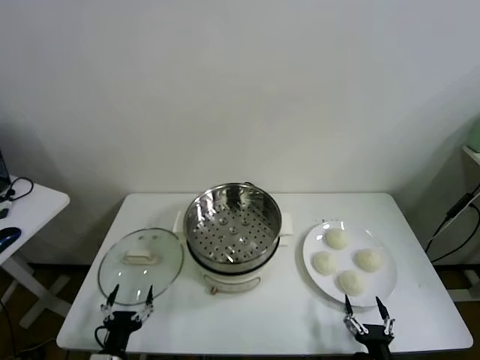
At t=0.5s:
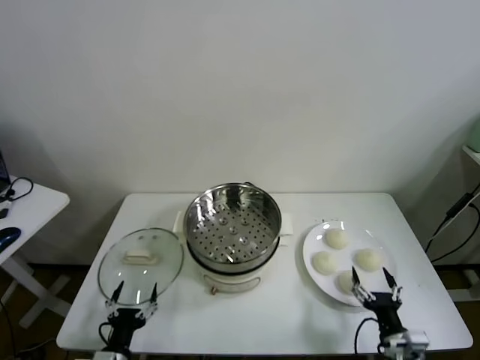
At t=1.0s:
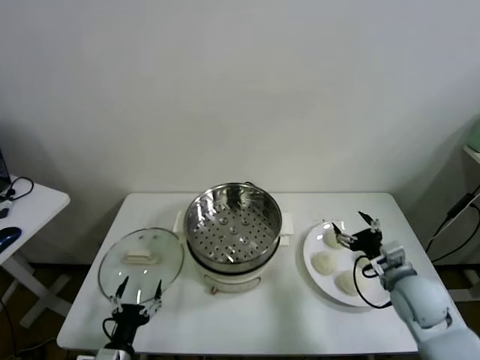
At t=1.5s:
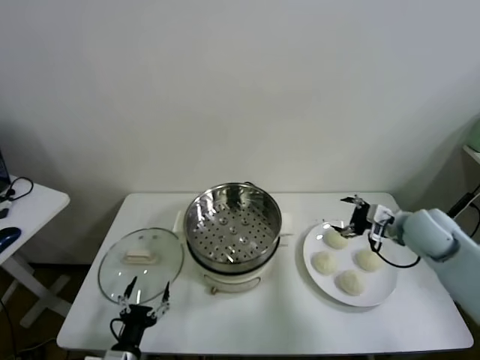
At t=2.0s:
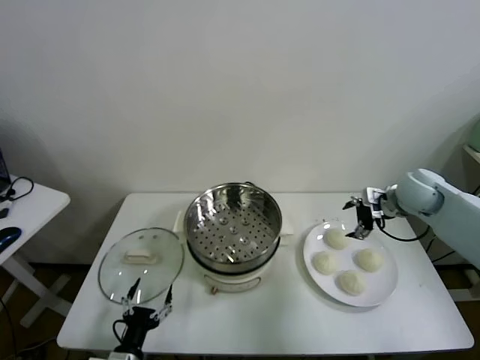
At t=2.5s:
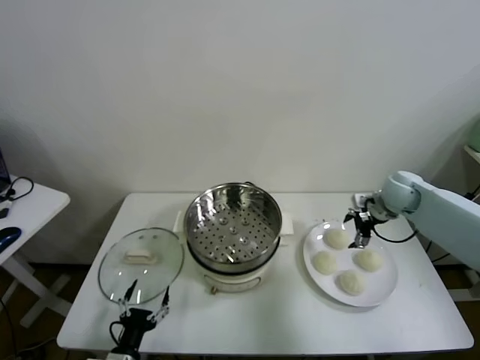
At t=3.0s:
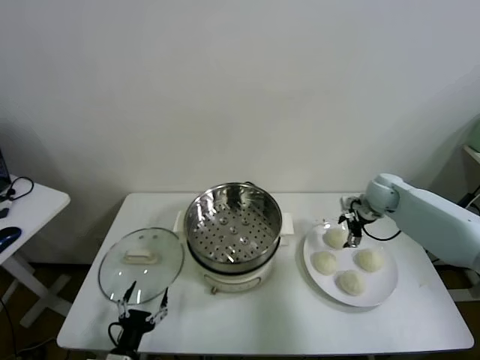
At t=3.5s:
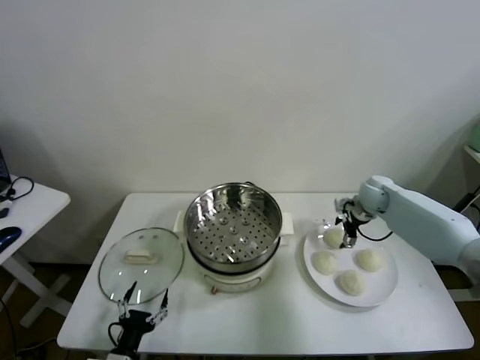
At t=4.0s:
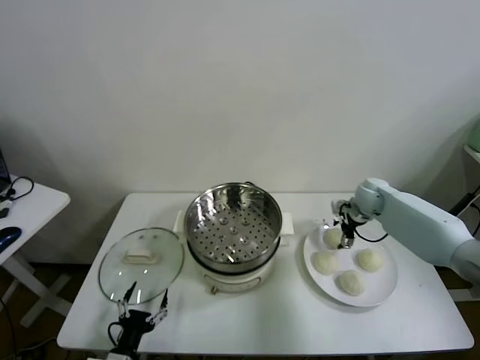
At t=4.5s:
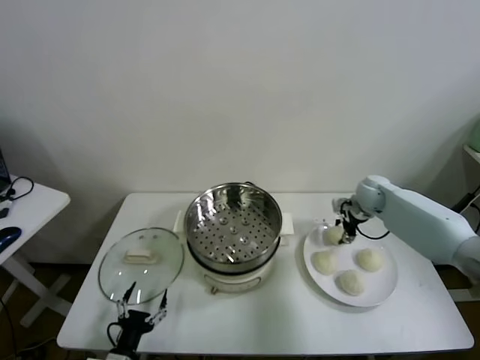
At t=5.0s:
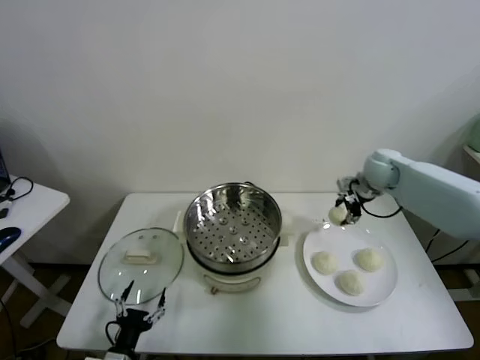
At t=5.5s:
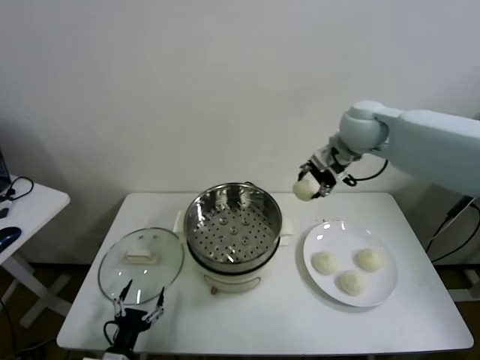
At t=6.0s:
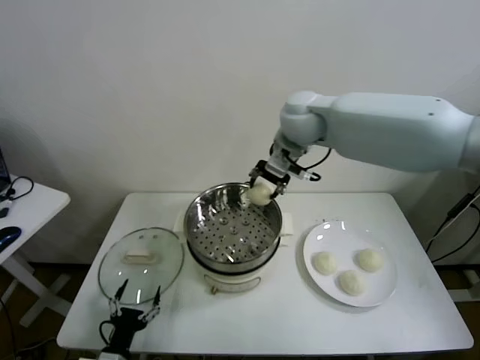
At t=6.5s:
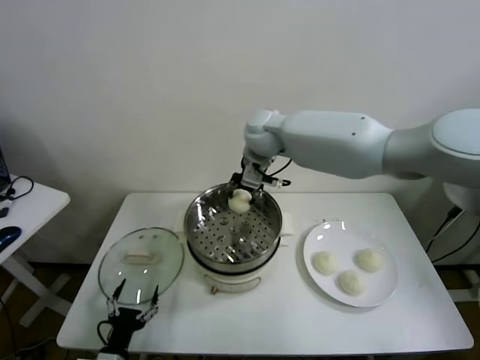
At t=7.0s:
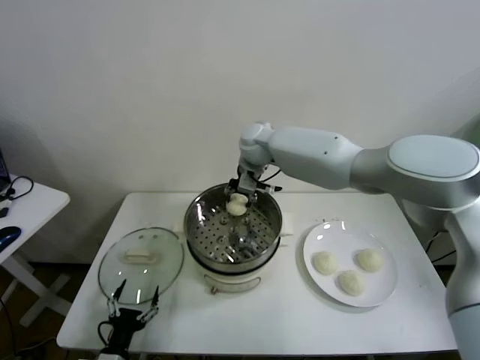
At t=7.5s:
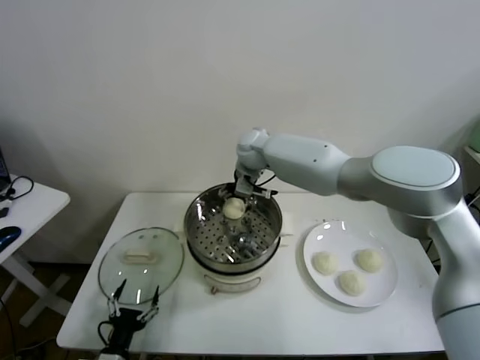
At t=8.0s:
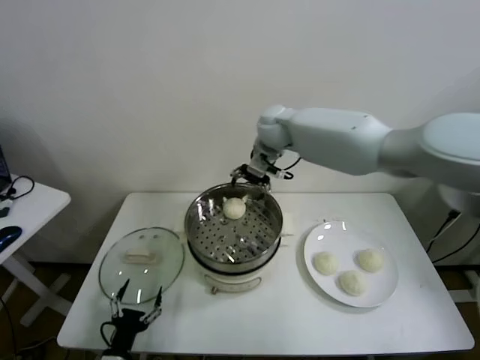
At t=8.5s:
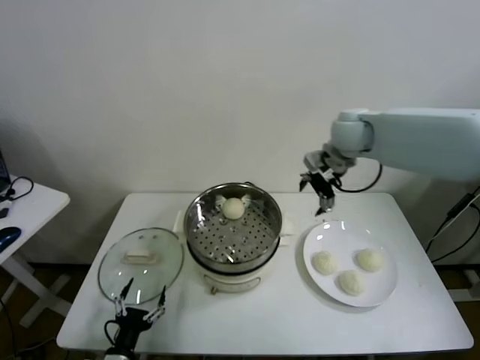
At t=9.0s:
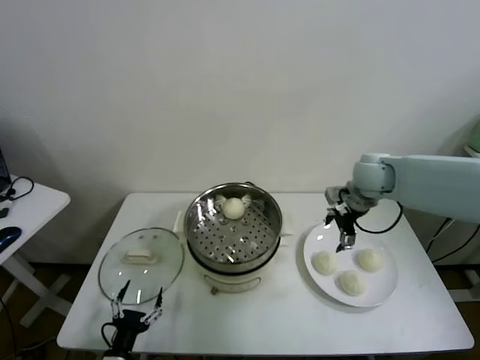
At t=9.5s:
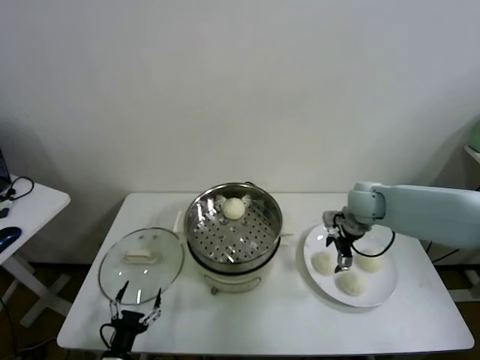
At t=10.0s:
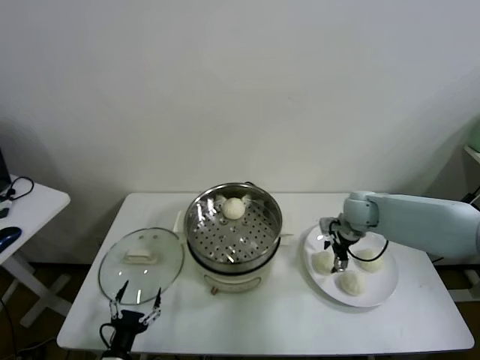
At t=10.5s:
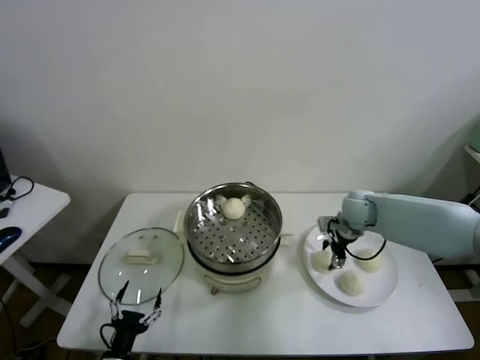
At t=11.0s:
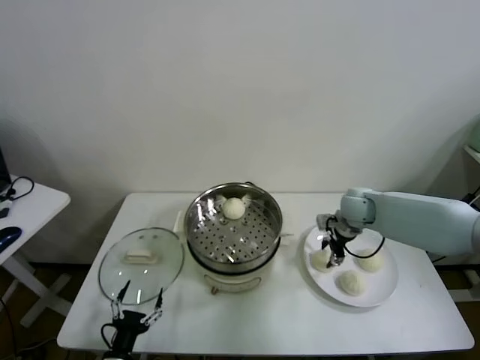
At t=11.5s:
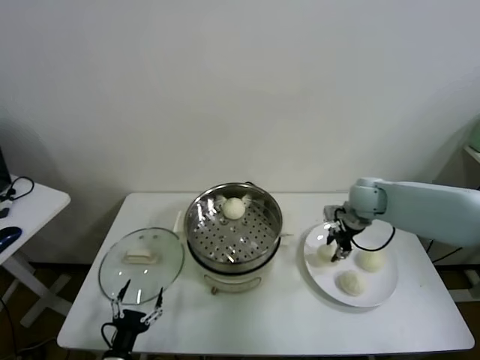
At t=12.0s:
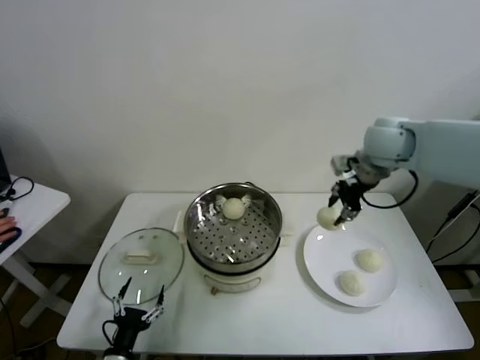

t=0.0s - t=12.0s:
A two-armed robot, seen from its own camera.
Task of the whole recording: take steamed baozi put them in steamer.
Step, t=0.0s - t=4.0s: Grasp the baozi in the plate with right gripper.
Step, t=4.5s - t=7.5s: Place the baozi on the steamer with right gripper.
Step, t=8.0s - t=10.5s: Grasp the baozi in the plate with right gripper.
t=2.0s - t=4.0s: The right gripper is displaced downward and forward by roughly 10 cm.
t=4.0s - t=6.0s: The right gripper goes about 35 cm to the left and upward, and closes up.
t=6.0s - t=8.0s: The right gripper travels forward by some 5 cm, goes downward and returns, some 10 cm each way, and opens its fingers.
t=8.0s - t=10.0s: The right gripper travels downward, to the right and backward by some 30 cm.
t=10.0s - t=12.0s: The right gripper goes roughly 25 cm upward, and closes up.

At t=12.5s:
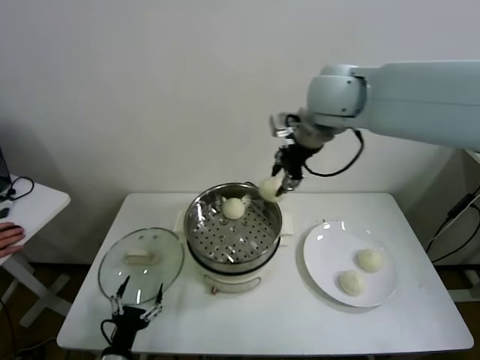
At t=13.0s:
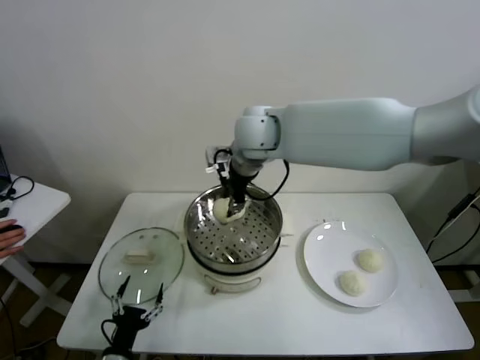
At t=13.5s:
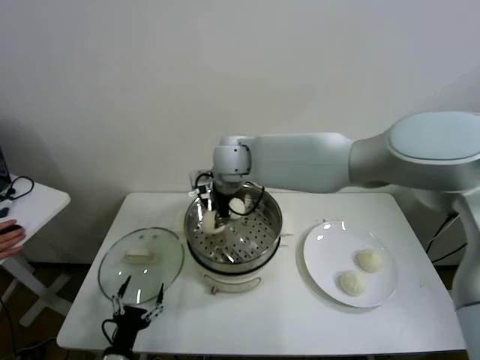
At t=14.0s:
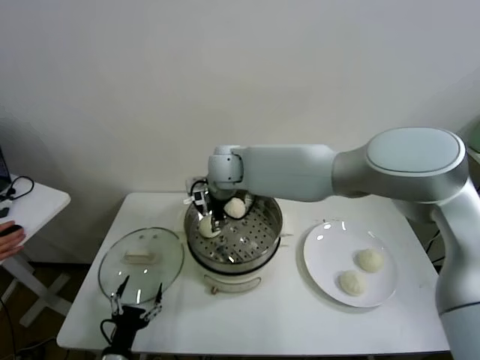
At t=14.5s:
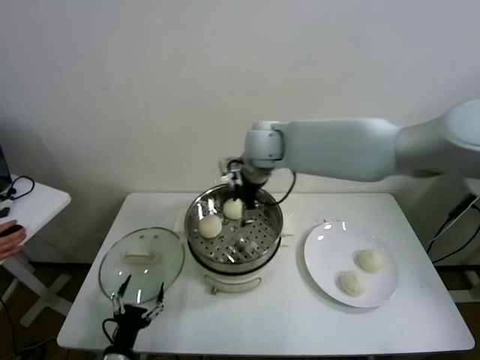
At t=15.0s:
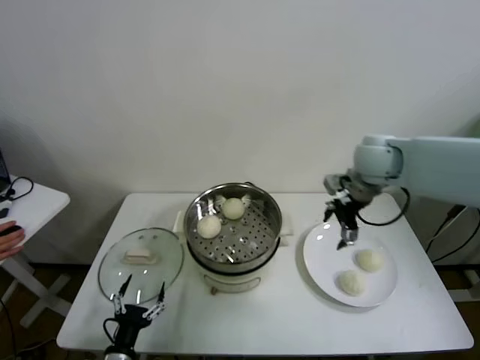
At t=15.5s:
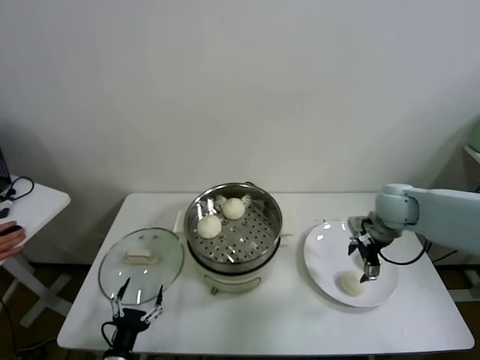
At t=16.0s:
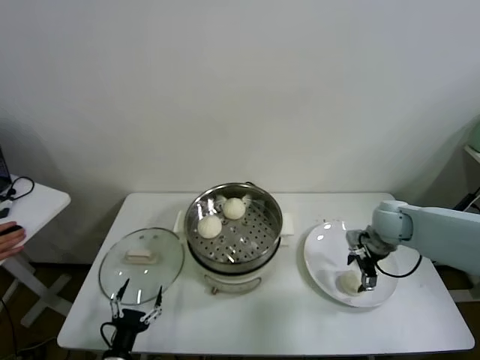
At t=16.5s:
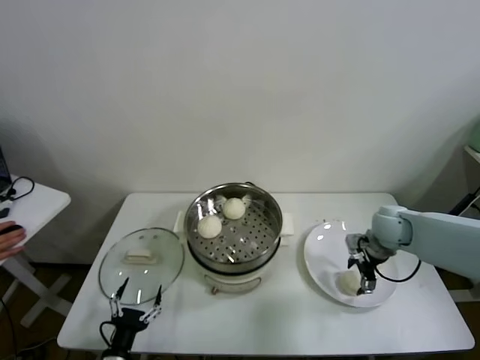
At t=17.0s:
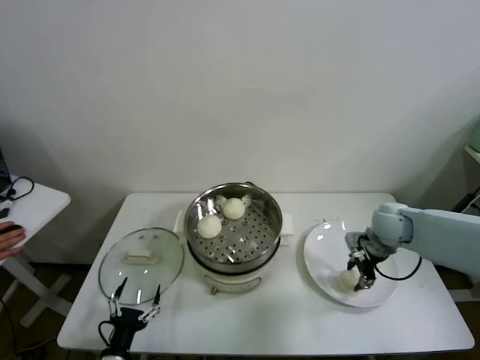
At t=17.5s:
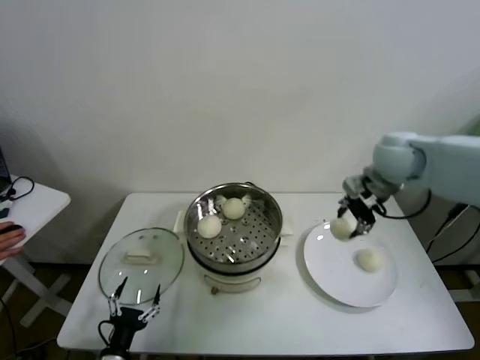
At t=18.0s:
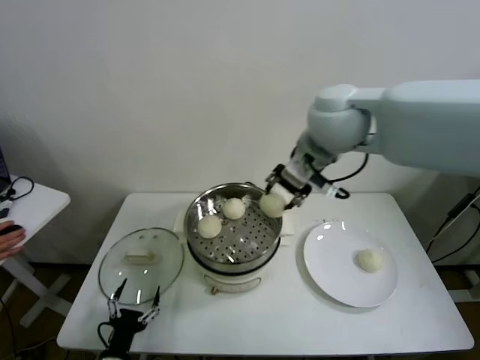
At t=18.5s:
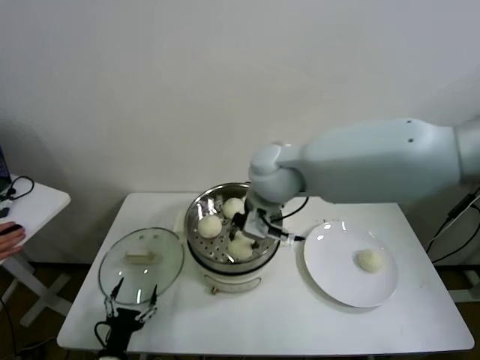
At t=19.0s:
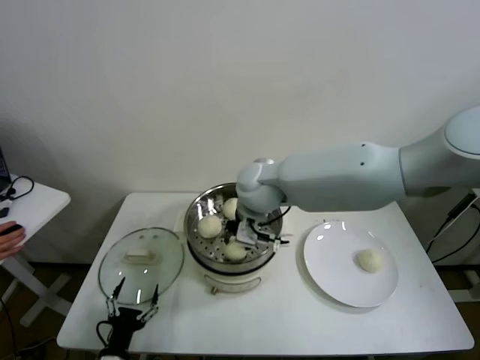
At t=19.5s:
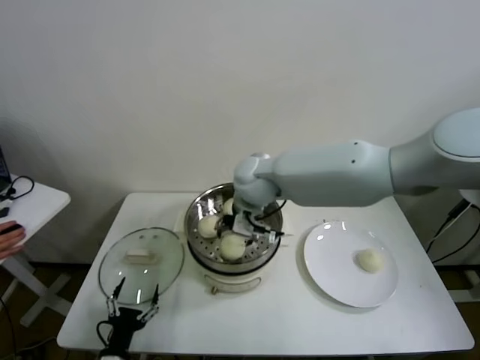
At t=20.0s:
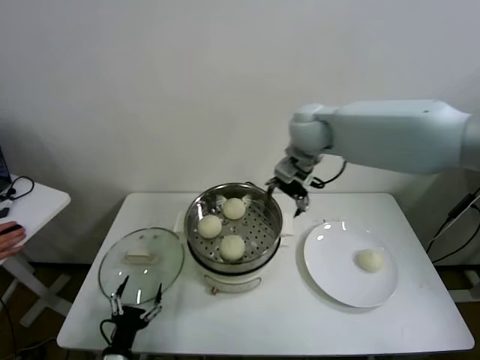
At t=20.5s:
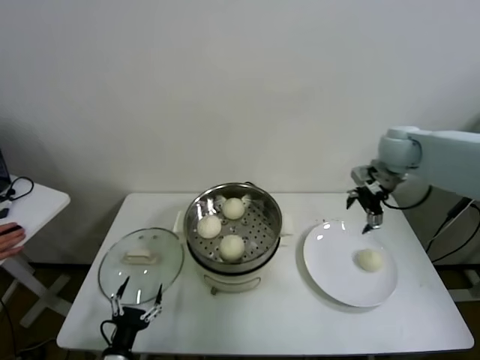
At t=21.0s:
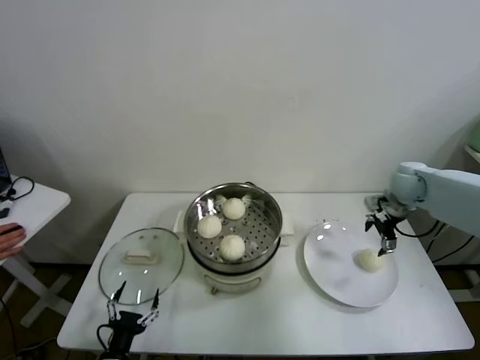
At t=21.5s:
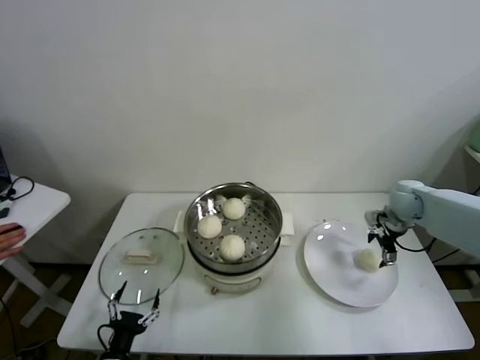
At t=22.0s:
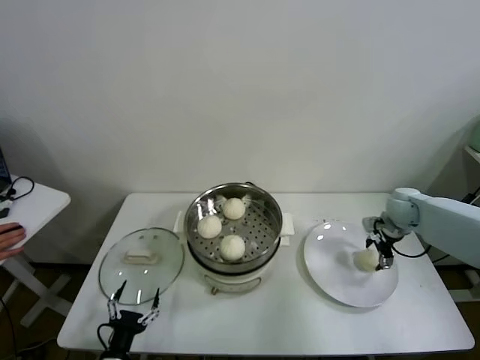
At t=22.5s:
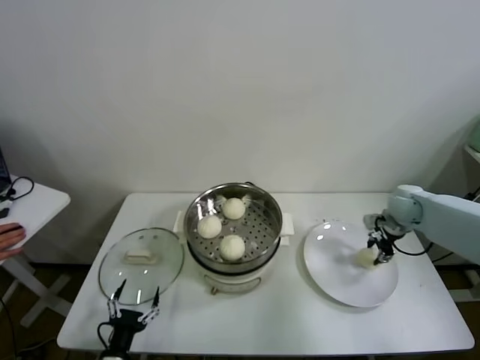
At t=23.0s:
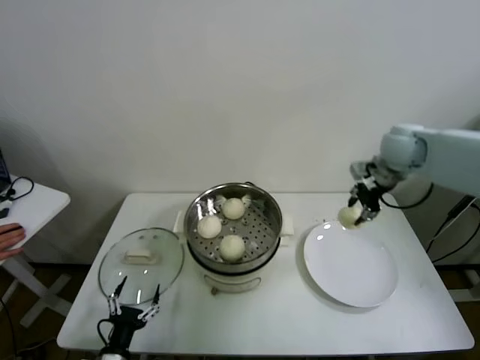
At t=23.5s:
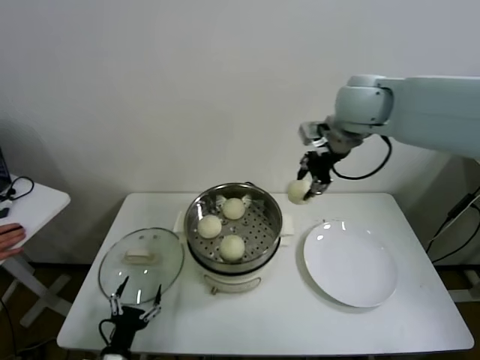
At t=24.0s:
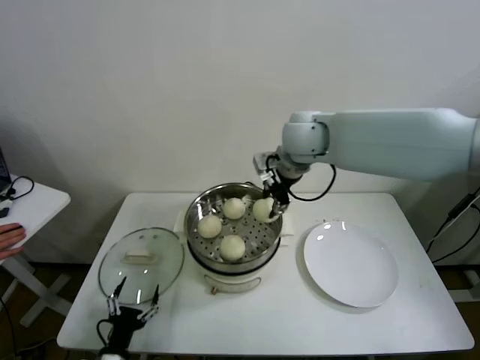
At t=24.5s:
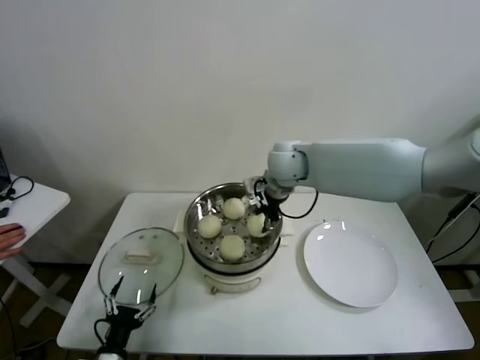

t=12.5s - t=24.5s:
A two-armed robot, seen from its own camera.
Task of the whole recording: take steamed baozi put them in steamer.
Step, t=14.5s - t=16.5s: Grasp the baozi in the plate with right gripper.
Step, t=17.0s - t=19.0s: Place the baozi on the steamer with right gripper.
Step, t=20.0s - t=22.0s: Grasp the baozi in the plate with right gripper.
t=12.5s - t=14.5s: The right gripper shifts approximately 15 cm downward and to the left, and opens up.
t=14.5s - t=16.5s: The right gripper travels to the right and downward by some 35 cm.
t=16.5s - t=18.5s: The right gripper moves to the left and upward, some 35 cm, and closes its fingers.
t=18.5s - t=20.5s: The right gripper moves to the right, approximately 30 cm, and opens its fingers.
t=20.5s - t=22.5s: The right gripper heads downward and to the right, covering about 15 cm, and closes.
t=22.5s - t=24.5s: The right gripper is displaced to the left and upward by roughly 35 cm.

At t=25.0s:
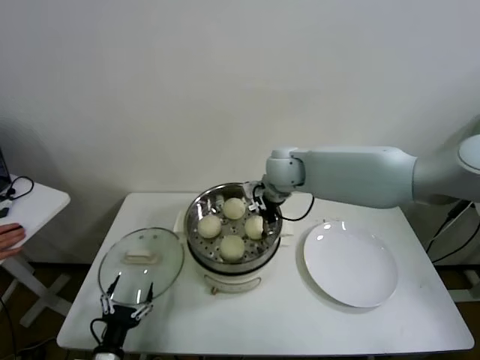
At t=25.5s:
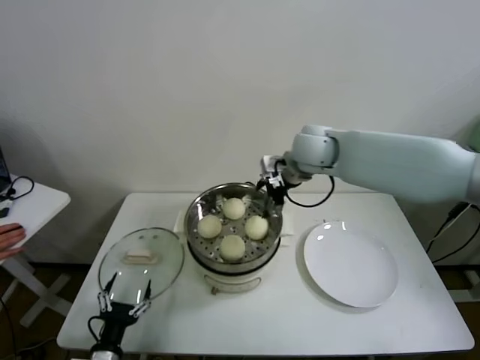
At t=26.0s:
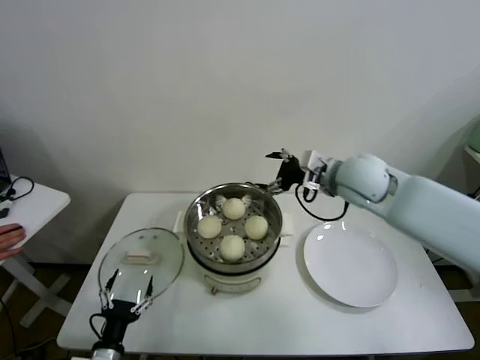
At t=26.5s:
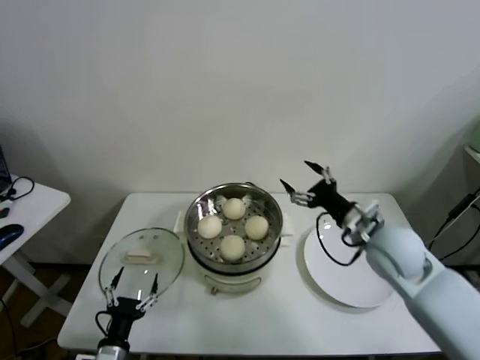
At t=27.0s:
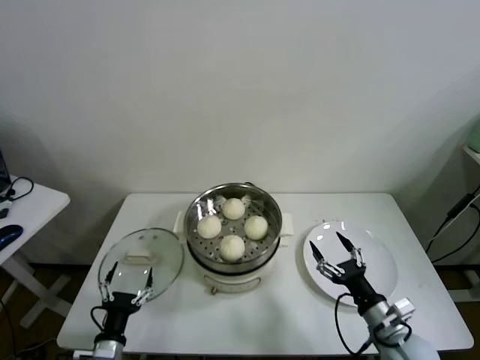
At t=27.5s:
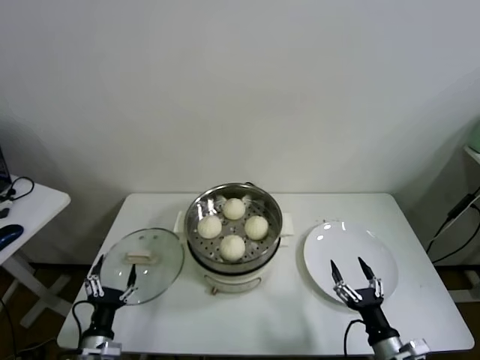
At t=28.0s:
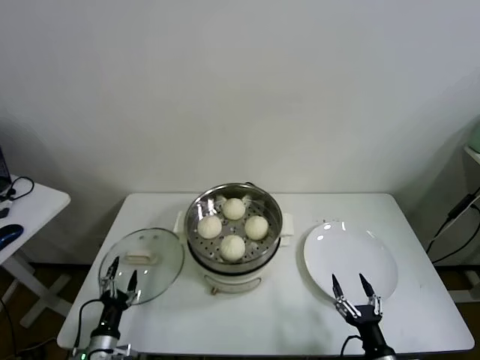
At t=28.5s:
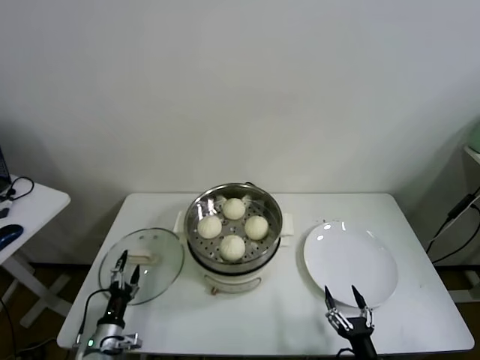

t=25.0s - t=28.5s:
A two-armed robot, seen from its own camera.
Task of the whole recording: take steamed baozi put them in steamer.
t=25.0s - t=27.0s: The right gripper goes some 40 cm backward, downward and to the right.
t=27.0s - t=28.5s: The right gripper is displaced downward and backward by about 15 cm. The left gripper travels downward by some 5 cm.
